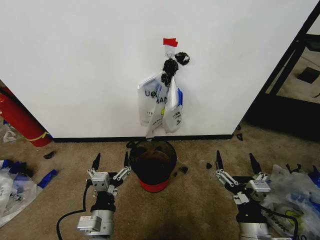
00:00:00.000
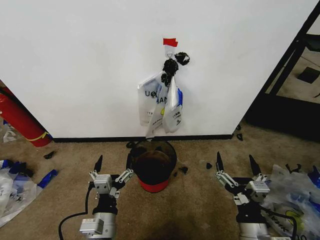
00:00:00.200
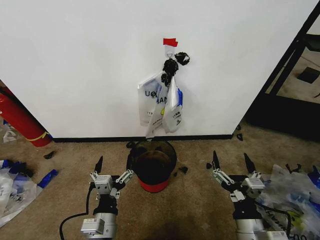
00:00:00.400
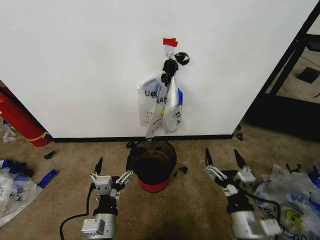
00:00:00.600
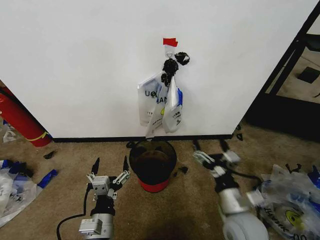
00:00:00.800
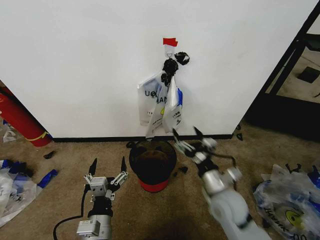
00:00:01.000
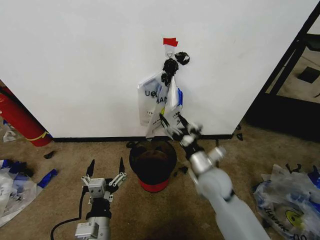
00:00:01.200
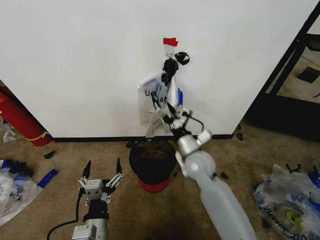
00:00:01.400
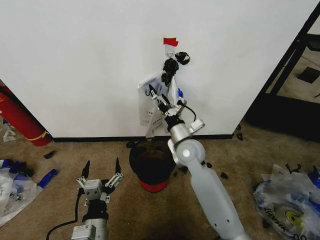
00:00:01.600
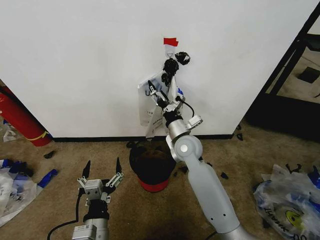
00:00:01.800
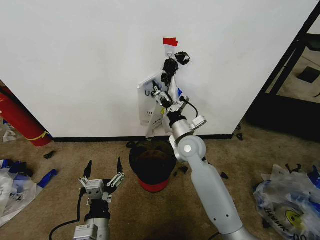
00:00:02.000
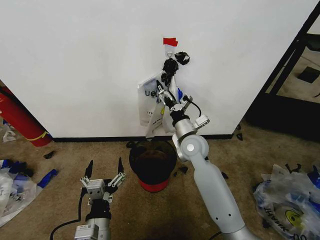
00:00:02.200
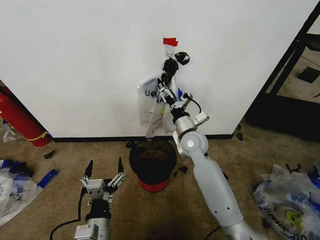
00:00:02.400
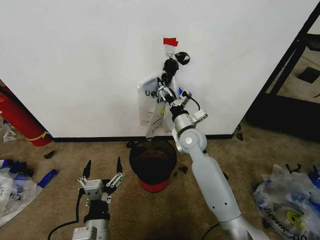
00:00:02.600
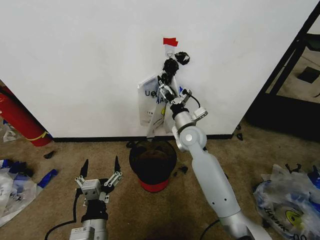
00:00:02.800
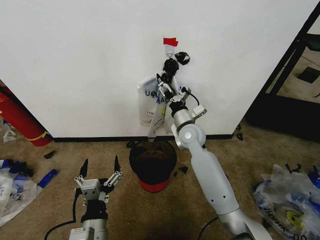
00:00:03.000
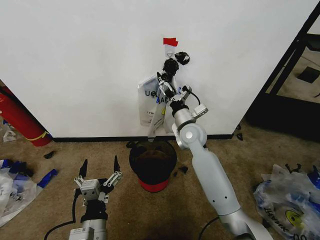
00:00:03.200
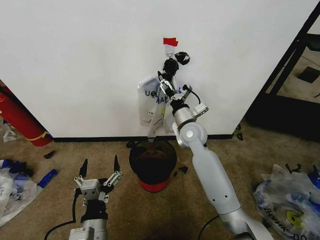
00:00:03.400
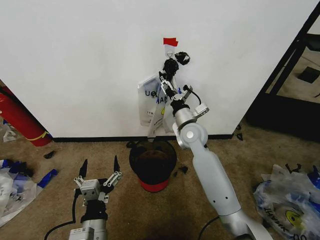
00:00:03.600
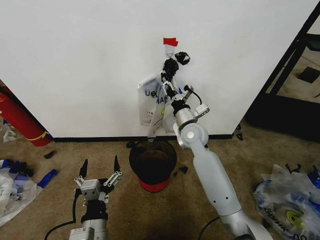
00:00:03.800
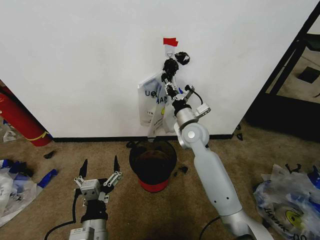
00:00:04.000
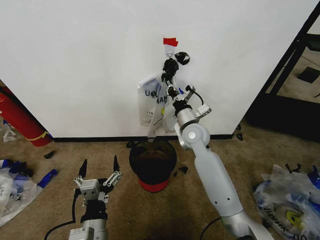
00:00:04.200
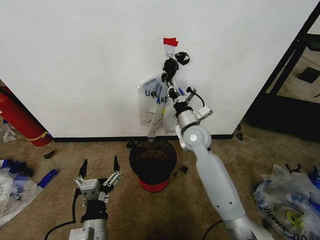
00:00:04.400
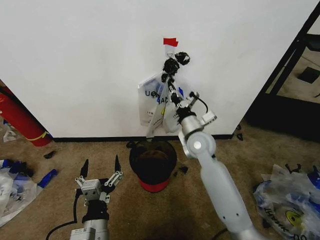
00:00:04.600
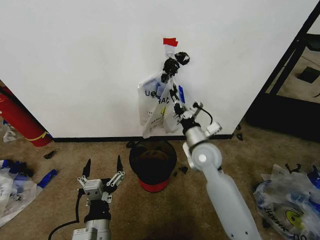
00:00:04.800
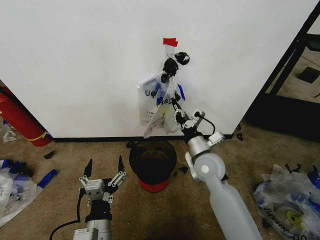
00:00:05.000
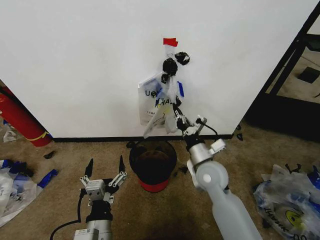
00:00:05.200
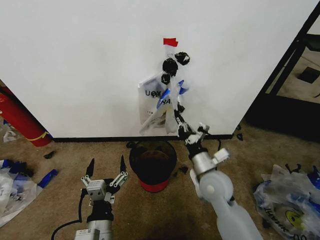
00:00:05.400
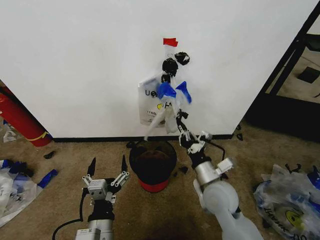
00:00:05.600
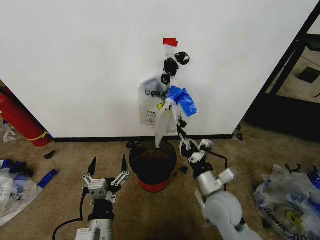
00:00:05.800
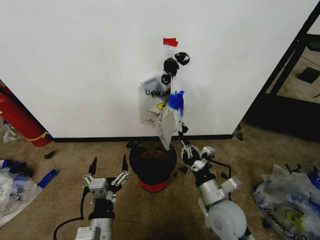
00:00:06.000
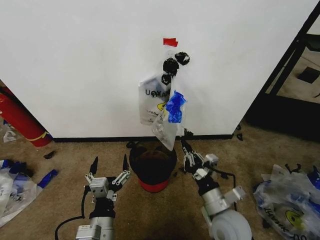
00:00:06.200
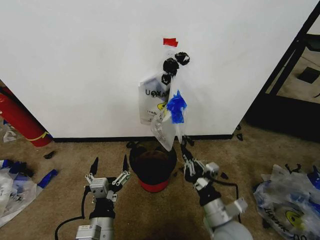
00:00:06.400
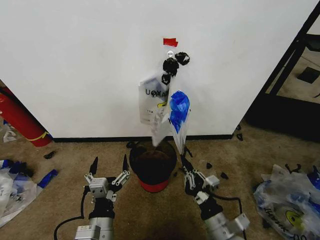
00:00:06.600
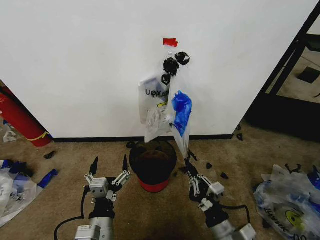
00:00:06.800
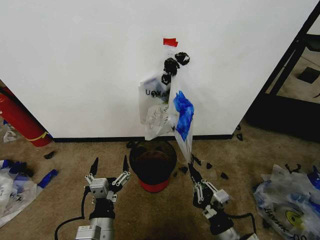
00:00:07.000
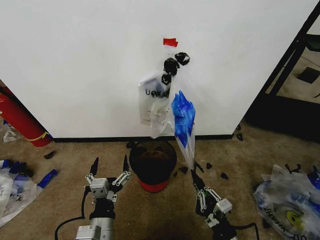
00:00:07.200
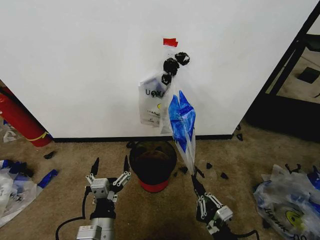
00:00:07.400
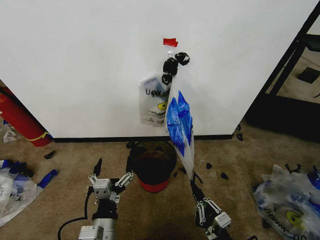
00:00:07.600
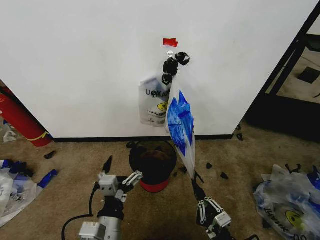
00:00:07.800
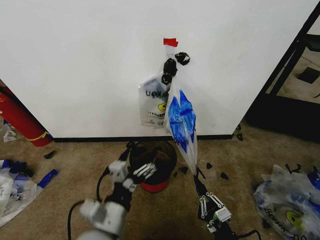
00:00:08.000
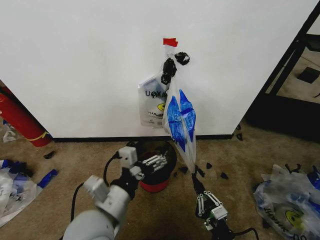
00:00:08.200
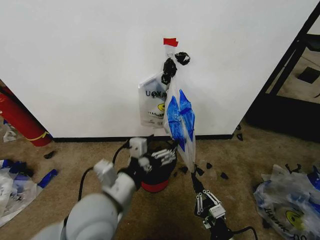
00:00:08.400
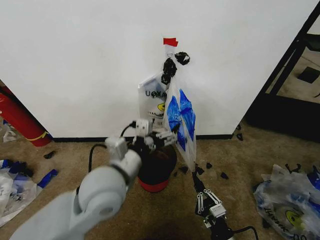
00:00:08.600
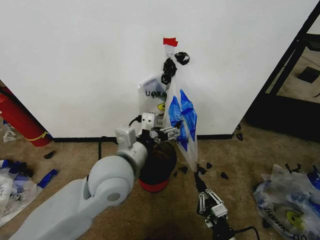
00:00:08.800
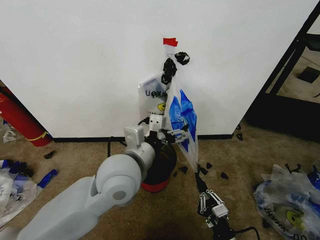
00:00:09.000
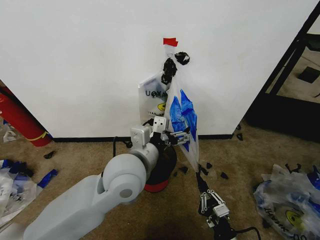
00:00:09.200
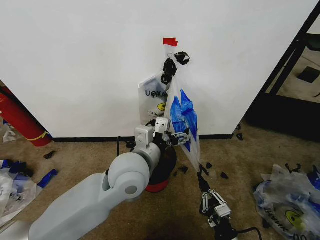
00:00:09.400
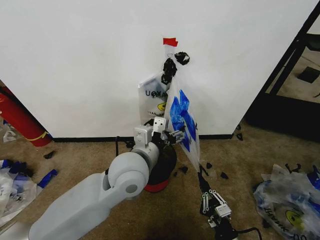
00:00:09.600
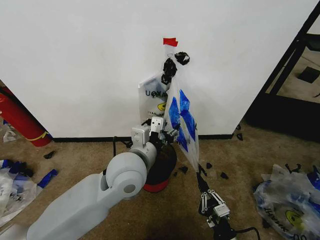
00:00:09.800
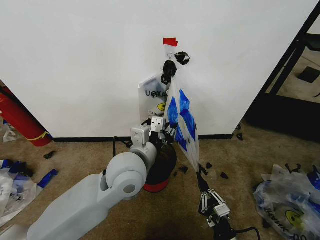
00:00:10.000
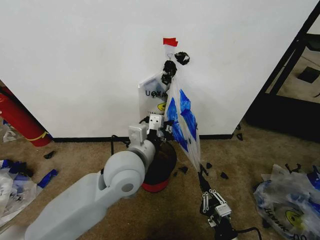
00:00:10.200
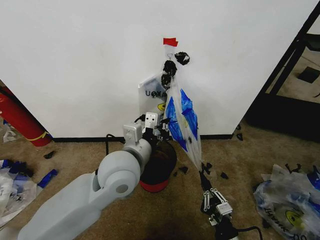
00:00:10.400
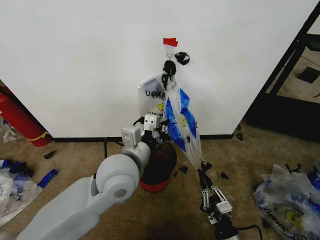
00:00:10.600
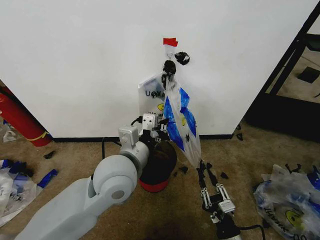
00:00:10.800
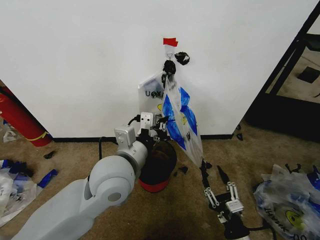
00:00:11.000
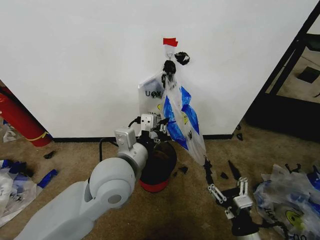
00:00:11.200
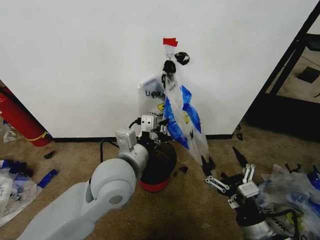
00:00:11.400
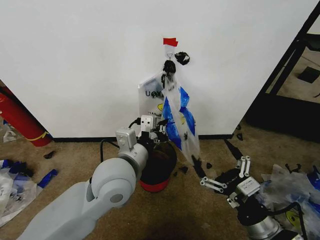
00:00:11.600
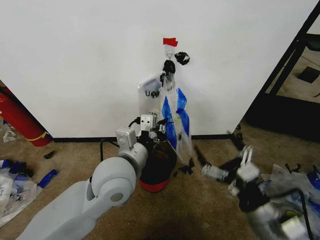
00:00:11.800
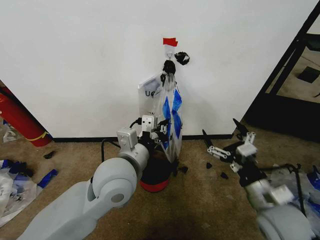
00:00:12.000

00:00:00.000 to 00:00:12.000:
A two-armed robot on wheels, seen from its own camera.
Task of the whole recording: Pick up the garbage bag from the wall and place it over the trash bin.
00:00:01.600 to 00:00:03.000: The right gripper shifts approximately 5 cm forward.
00:00:03.000 to 00:00:04.400: The right gripper closes up.
00:00:04.400 to 00:00:06.000: The right gripper travels backward by roughly 25 cm.
00:00:06.000 to 00:00:07.600: The right gripper shifts approximately 15 cm backward and downward.
00:00:07.600 to 00:00:09.000: The left gripper heads upward and forward, covering roughly 25 cm.
00:00:09.000 to 00:00:10.400: The left gripper closes.
00:00:10.400 to 00:00:12.000: The right gripper travels upward and forward by some 20 cm, and opens its fingers.

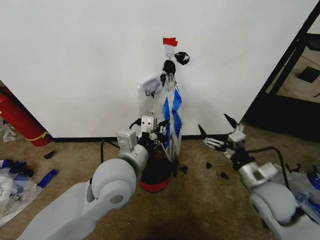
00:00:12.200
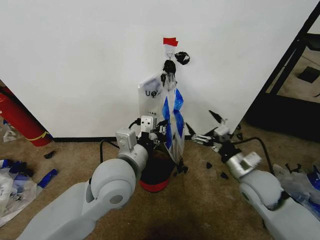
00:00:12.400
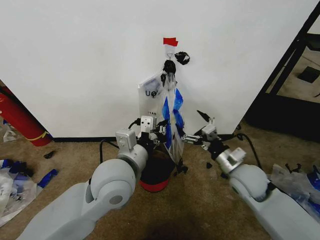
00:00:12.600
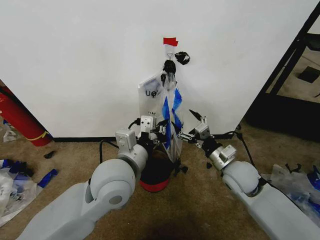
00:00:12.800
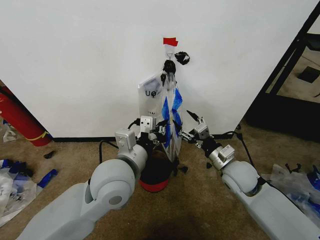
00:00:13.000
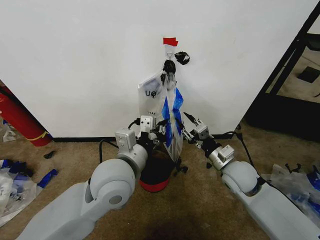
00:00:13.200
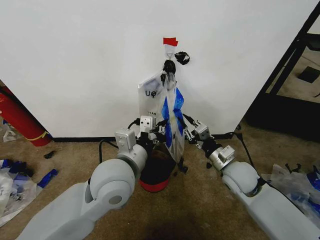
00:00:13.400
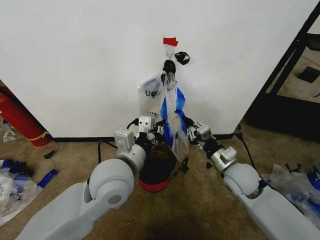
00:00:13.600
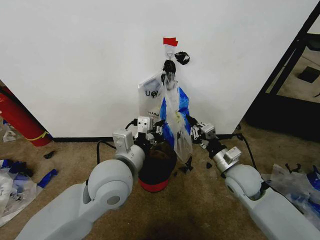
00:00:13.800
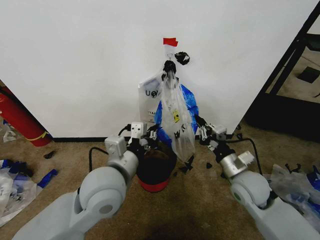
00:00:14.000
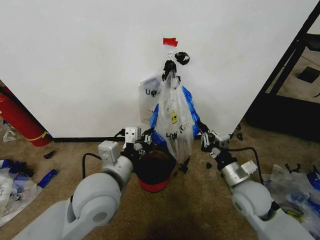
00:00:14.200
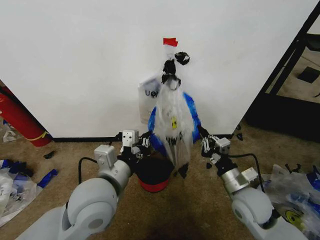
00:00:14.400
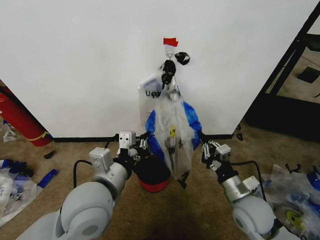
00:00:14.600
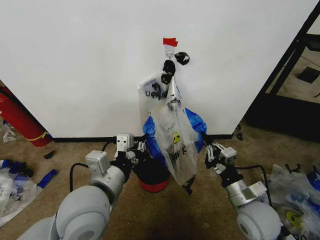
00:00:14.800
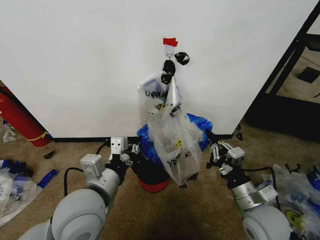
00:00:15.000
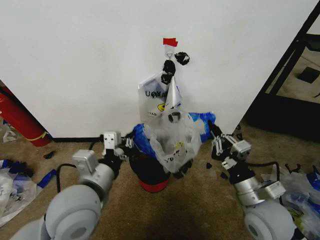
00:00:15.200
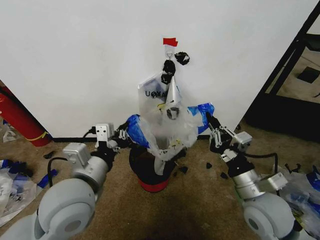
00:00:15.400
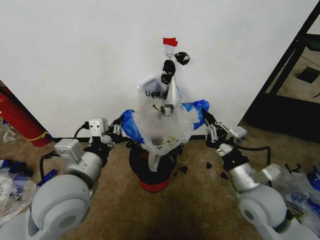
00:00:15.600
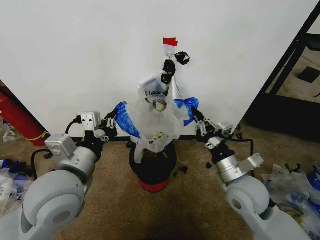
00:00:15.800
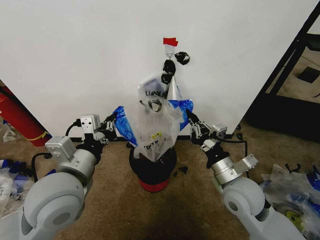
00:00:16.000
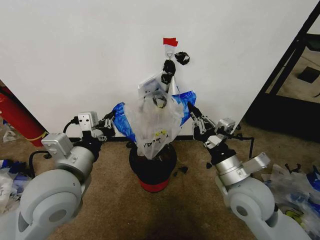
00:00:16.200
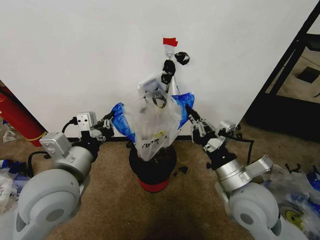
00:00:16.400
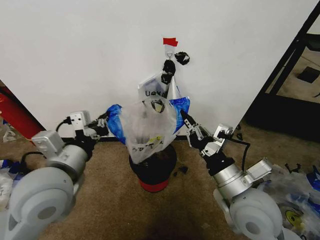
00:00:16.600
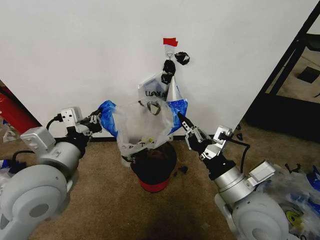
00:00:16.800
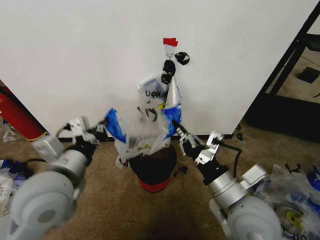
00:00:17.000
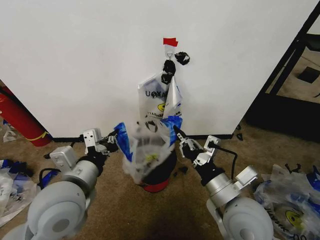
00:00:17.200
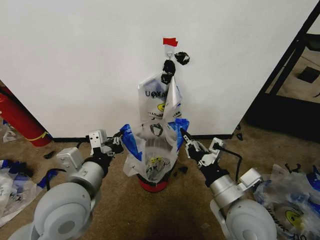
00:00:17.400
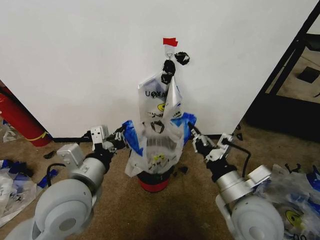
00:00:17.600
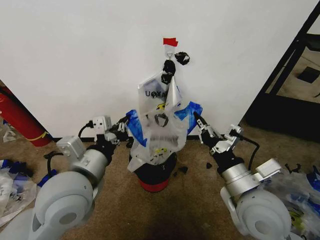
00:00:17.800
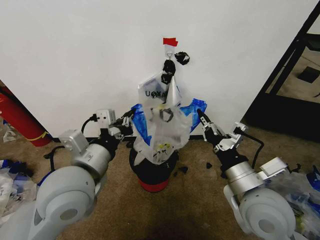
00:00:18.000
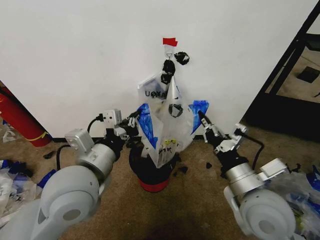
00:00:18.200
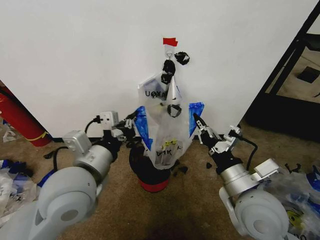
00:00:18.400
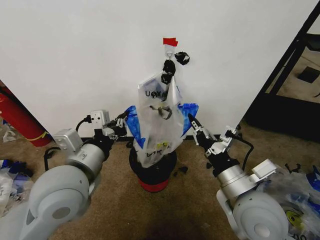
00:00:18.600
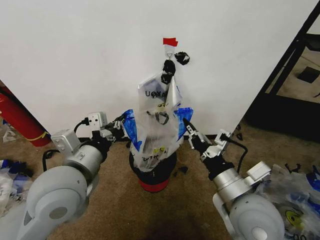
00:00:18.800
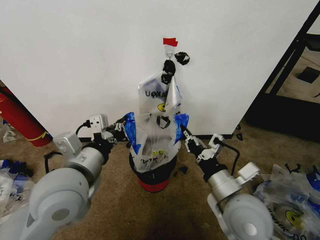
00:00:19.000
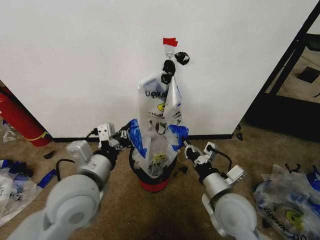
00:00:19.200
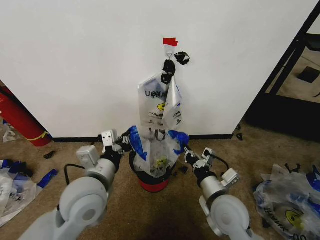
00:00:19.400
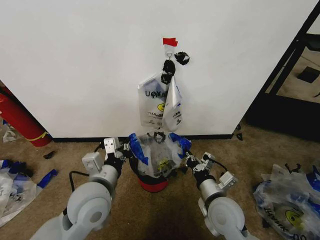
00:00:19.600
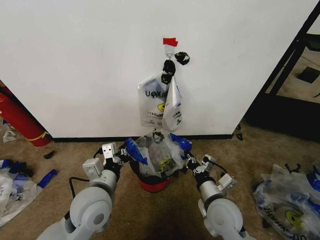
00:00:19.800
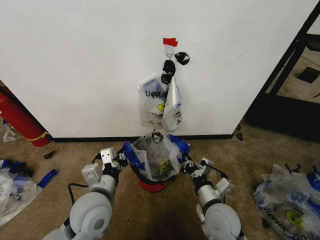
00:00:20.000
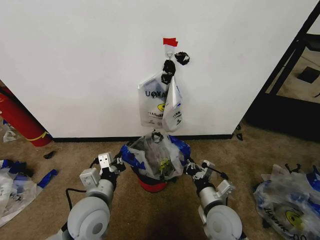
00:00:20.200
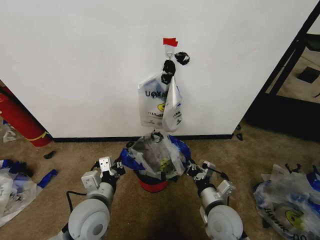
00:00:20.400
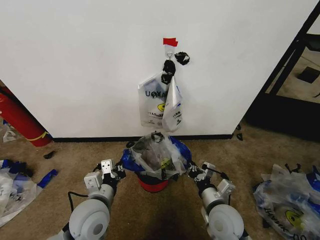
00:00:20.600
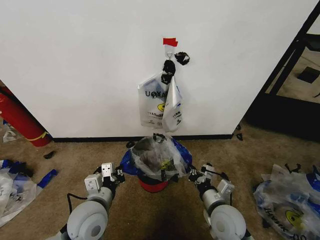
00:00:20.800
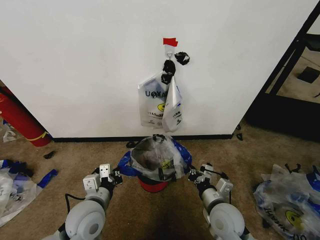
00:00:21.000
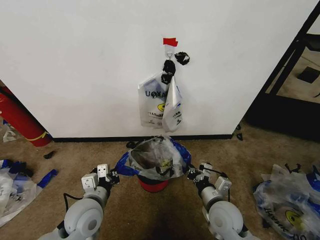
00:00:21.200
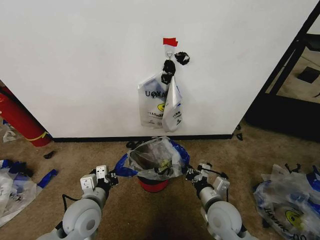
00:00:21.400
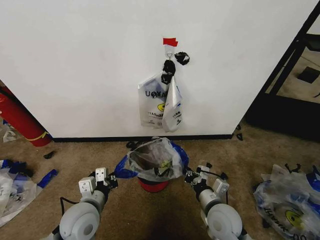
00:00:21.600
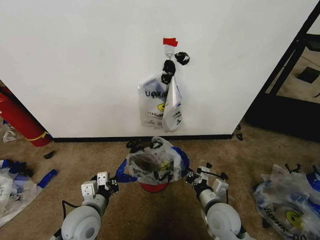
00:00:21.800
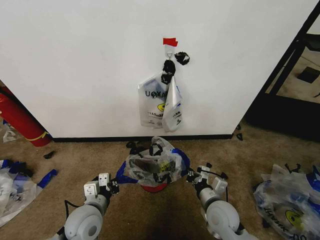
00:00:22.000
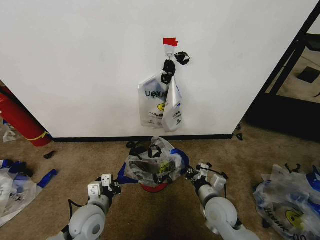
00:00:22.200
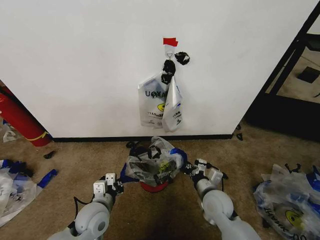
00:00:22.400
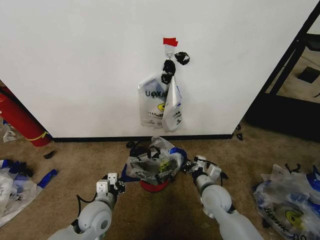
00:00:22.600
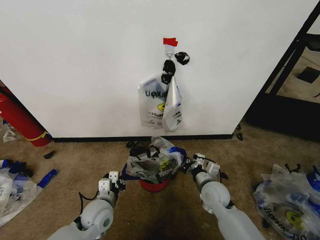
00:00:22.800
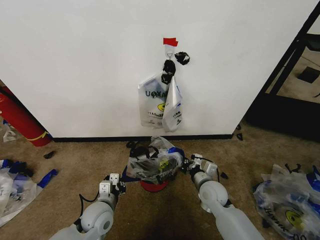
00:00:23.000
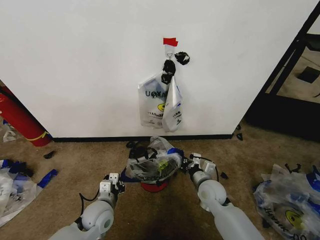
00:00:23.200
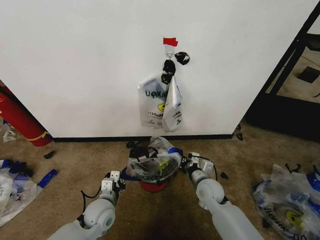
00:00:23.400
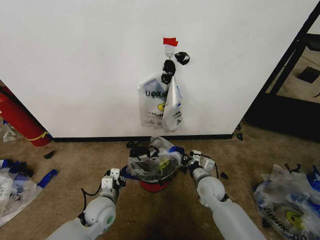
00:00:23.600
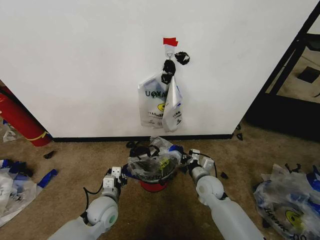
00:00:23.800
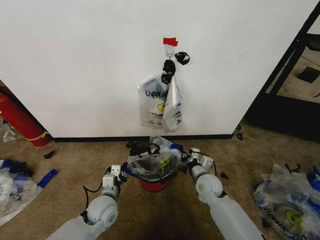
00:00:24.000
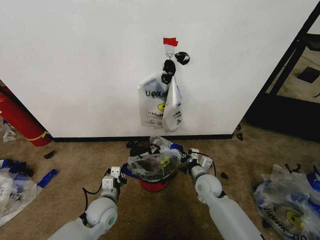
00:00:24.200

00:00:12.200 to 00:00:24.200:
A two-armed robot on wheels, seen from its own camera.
Task of the whole recording: Pick up the garbage bag from the wall and place it over the trash bin.
00:00:12.200 to 00:00:13.800: The right gripper shifts approximately 5 cm forward, and closes.
00:00:13.800 to 00:00:15.200: The right gripper heads backward, covering roughly 10 cm, while the left gripper moves to the left and backward, approximately 10 cm.
00:00:15.200 to 00:00:16.600: The left gripper ends up approximately 5 cm from where it was. The right gripper goes approximately 10 cm upward and to the left.
00:00:16.600 to 00:00:18.200: The left gripper heads to the right, covering roughly 5 cm.
00:00:18.200 to 00:00:19.800: Both grippers move downward, some 15 cm.
00:00:19.800 to 00:00:21.200: The left gripper heads downward, covering approximately 5 cm.
00:00:21.200 to 00:00:22.600: The left gripper goes approximately 5 cm downward, while the right gripper shifts roughly 5 cm forward.
00:00:22.600 to 00:00:24.200: The right gripper moves forward, roughly 5 cm.
